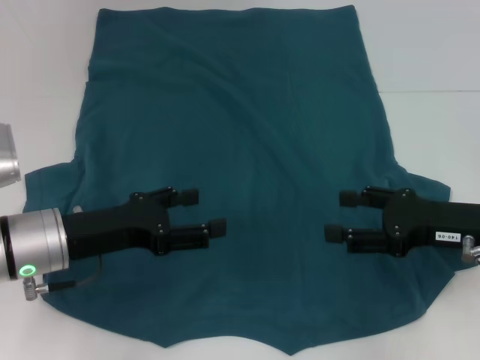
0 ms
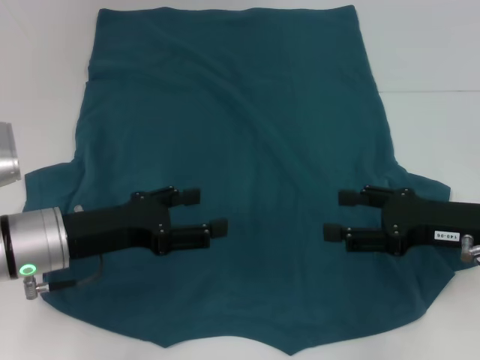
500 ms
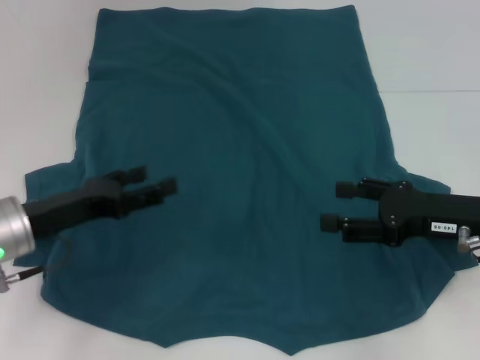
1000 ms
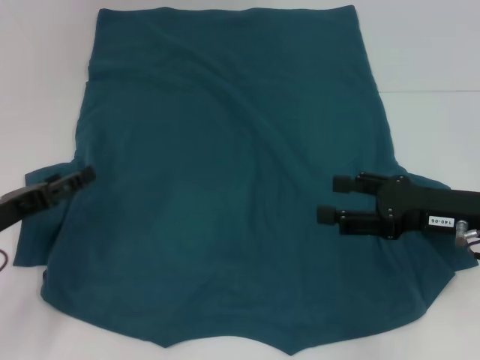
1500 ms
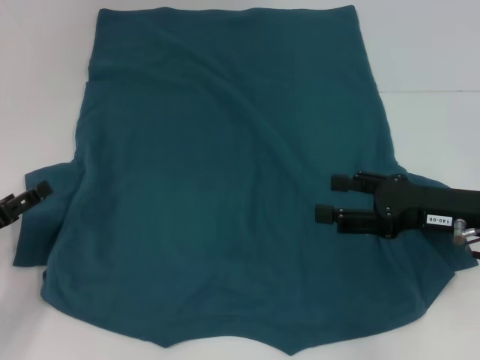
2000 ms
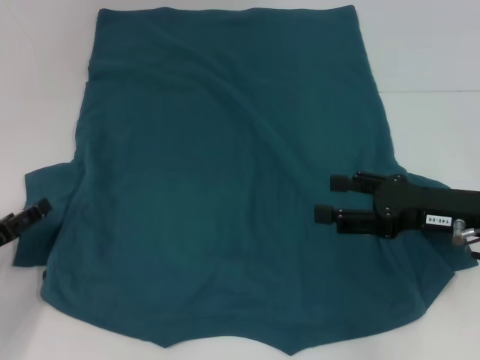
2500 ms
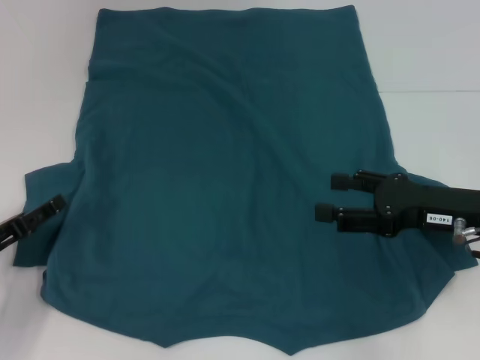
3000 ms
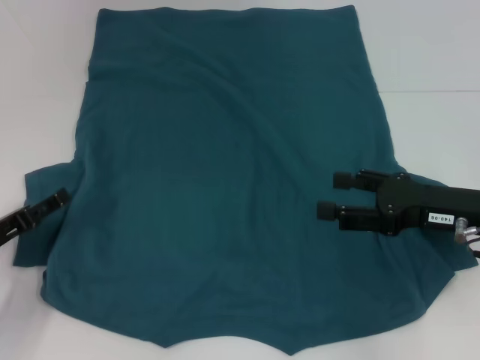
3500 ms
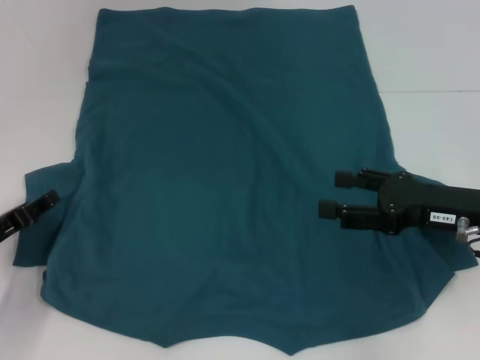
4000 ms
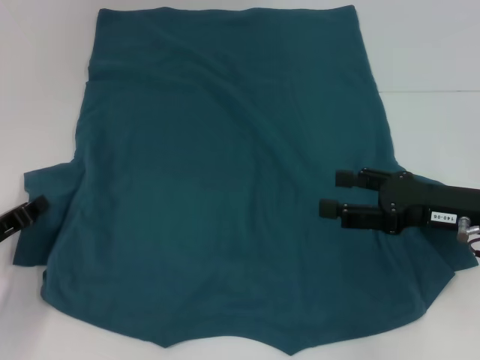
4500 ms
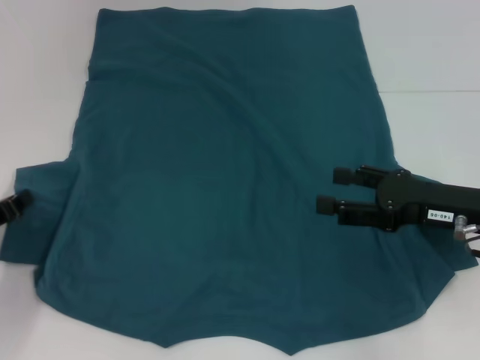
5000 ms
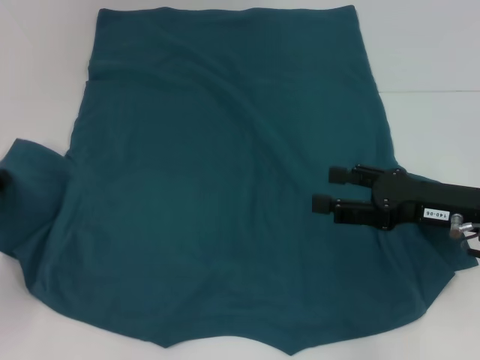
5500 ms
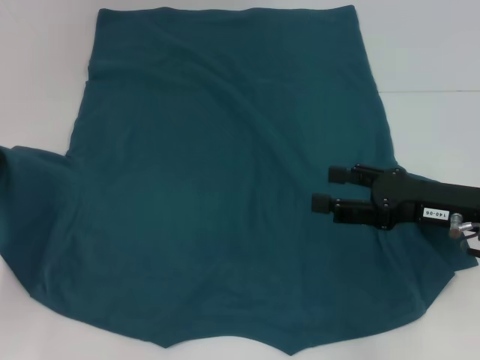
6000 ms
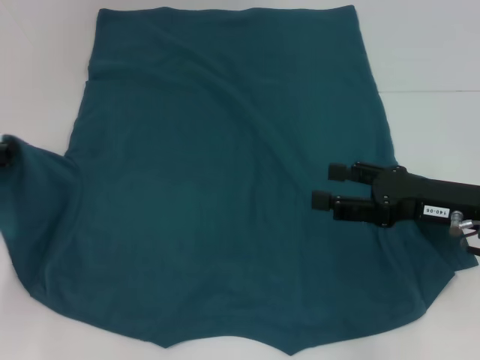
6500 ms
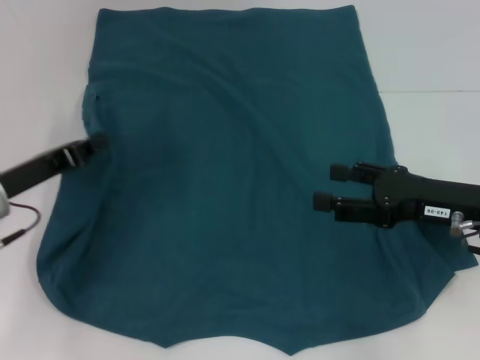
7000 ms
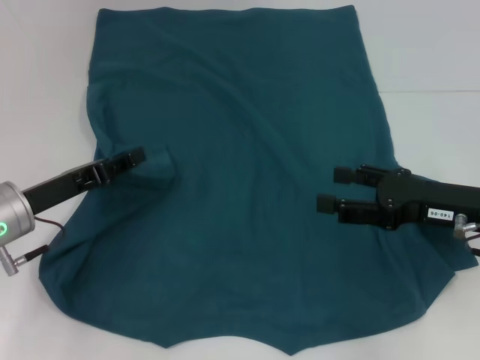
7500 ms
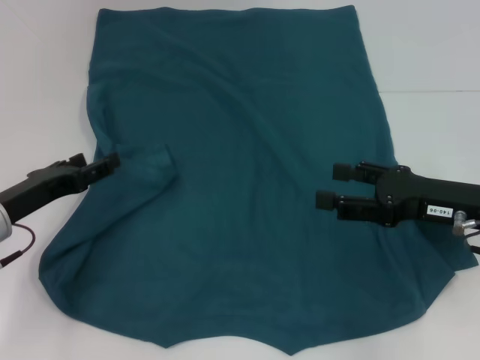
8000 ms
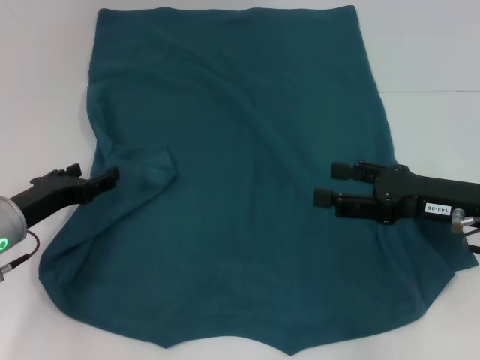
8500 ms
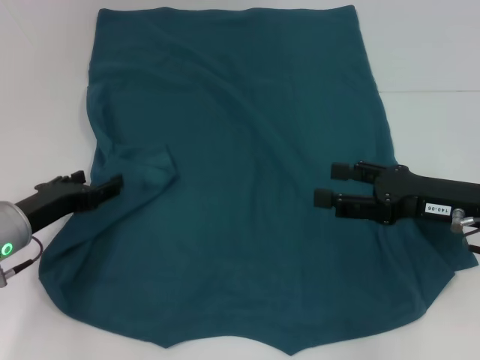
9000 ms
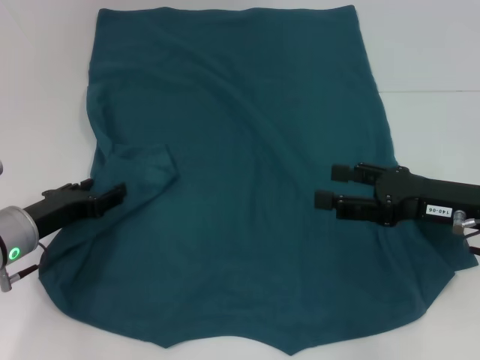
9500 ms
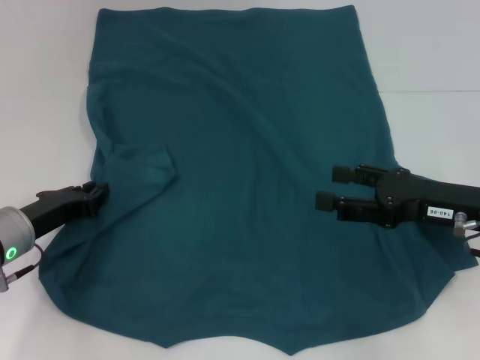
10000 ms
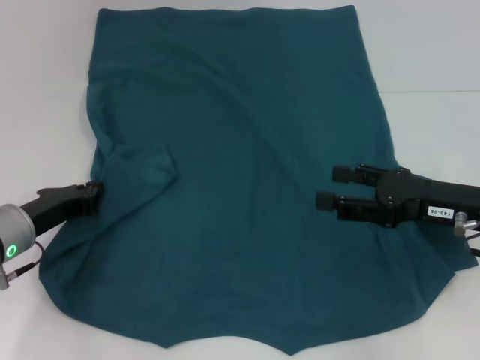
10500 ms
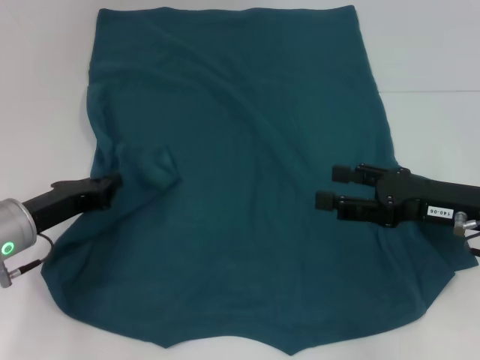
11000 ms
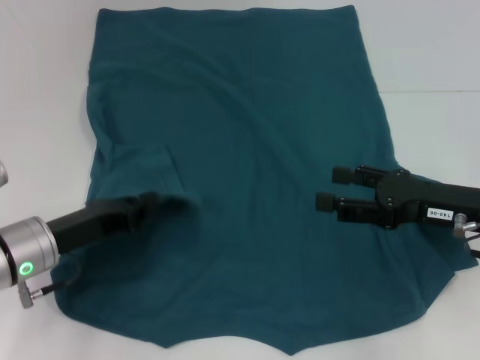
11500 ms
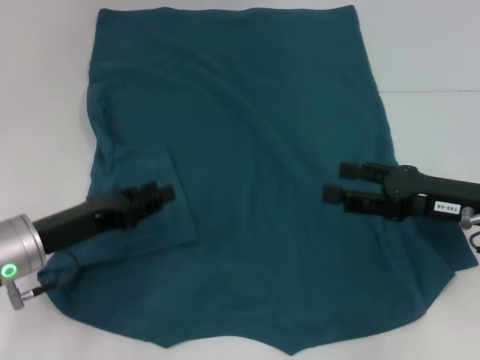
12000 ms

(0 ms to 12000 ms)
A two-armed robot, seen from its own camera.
Step, 0 ms - 11500 ms: Fold the bottom left sleeve with your left hand.
0 ms - 2000 ms: The left gripper heads to the left, covering about 10 cm.
2000 ms - 4000 ms: The grippers make only small movements.
4000 ms - 6000 ms: The left gripper shifts by some 5 cm, and closes up.
6000 ms - 8000 ms: The left gripper shifts approximately 5 cm to the right, and opens.
8000 ms - 10000 ms: The left gripper closes.
10000 ms - 12000 ms: The left gripper changes place by some 5 cm.

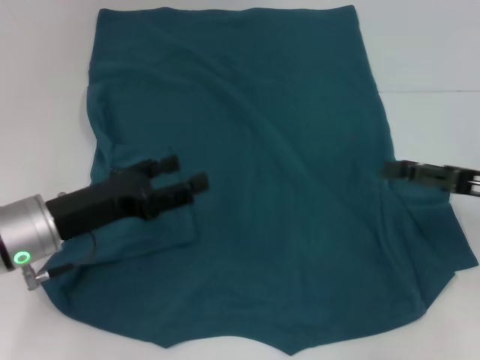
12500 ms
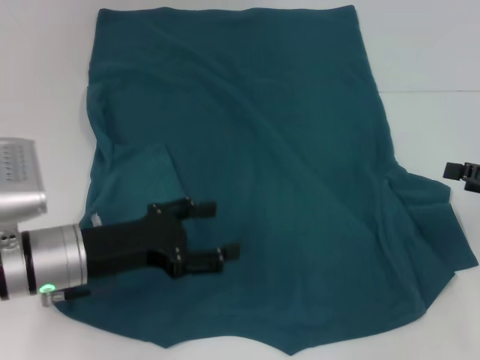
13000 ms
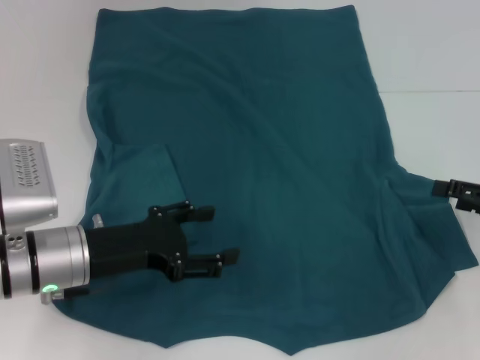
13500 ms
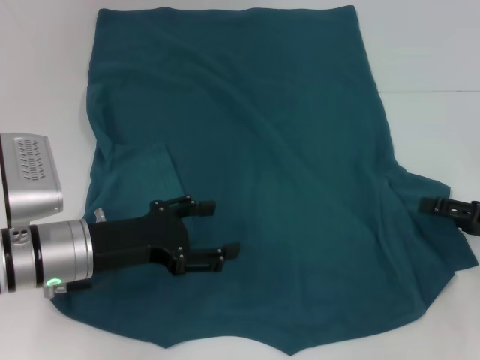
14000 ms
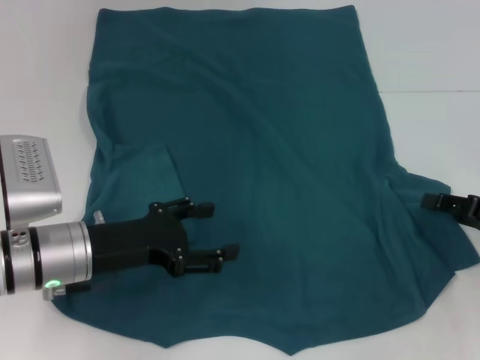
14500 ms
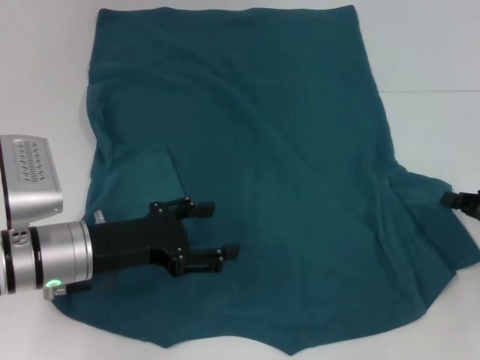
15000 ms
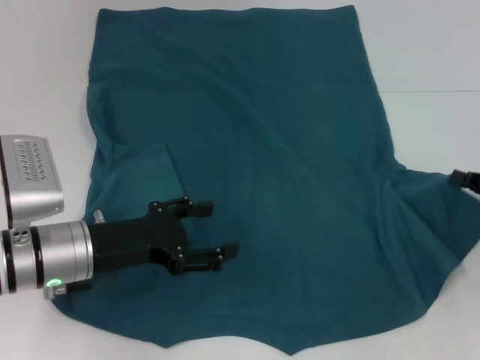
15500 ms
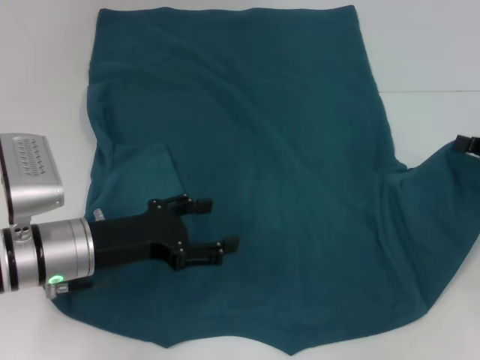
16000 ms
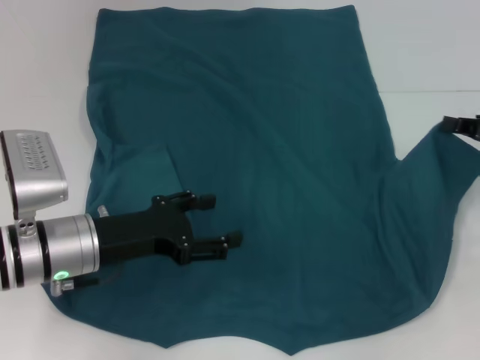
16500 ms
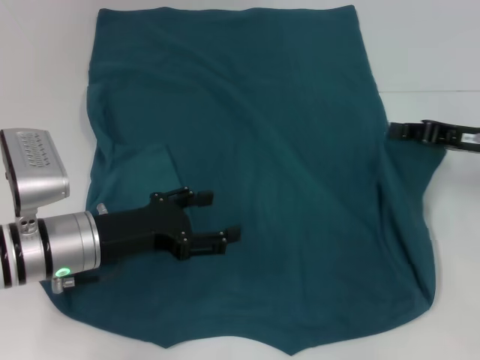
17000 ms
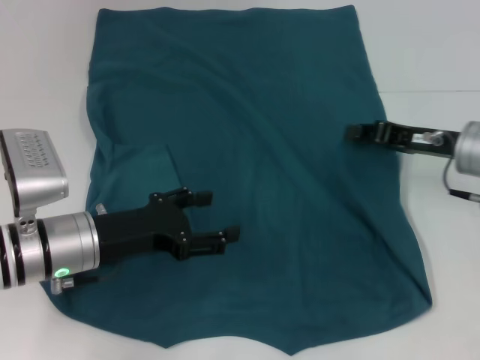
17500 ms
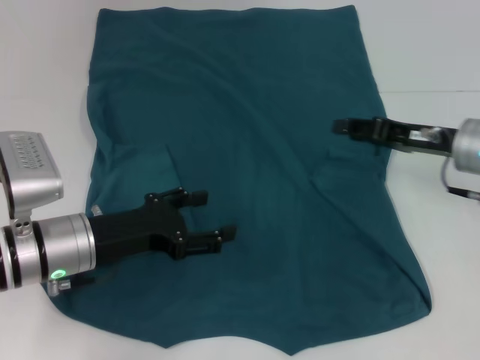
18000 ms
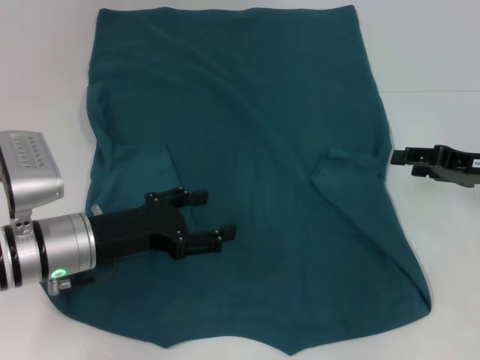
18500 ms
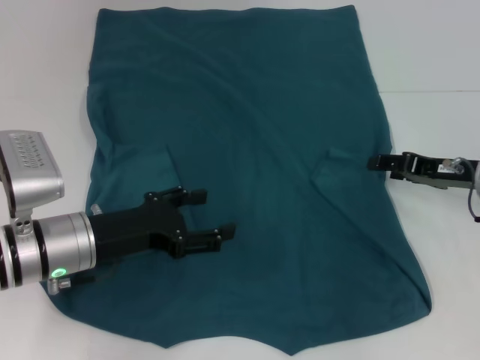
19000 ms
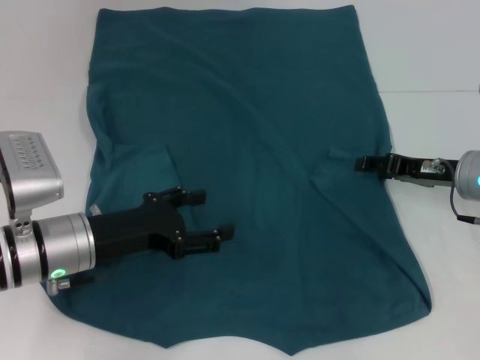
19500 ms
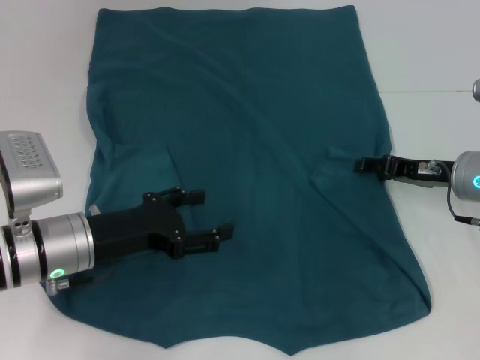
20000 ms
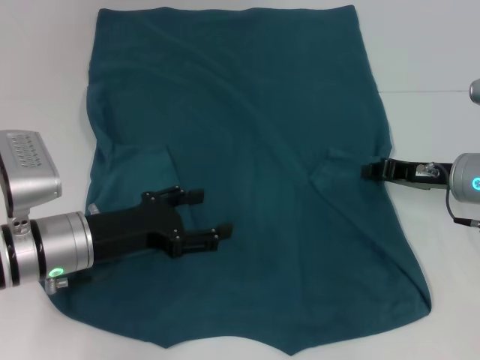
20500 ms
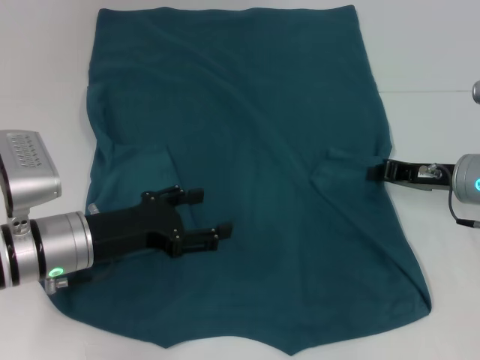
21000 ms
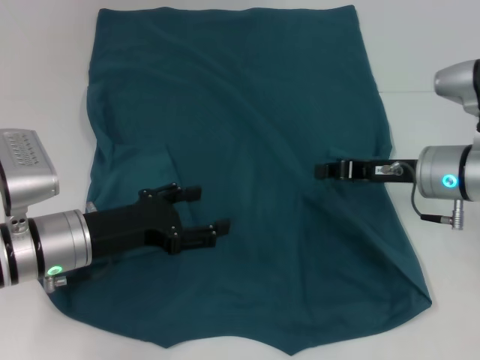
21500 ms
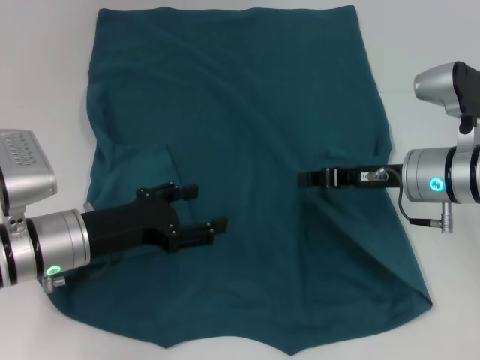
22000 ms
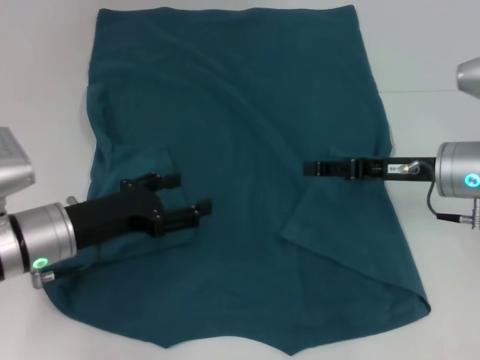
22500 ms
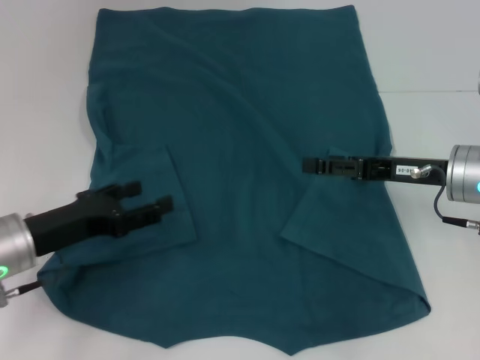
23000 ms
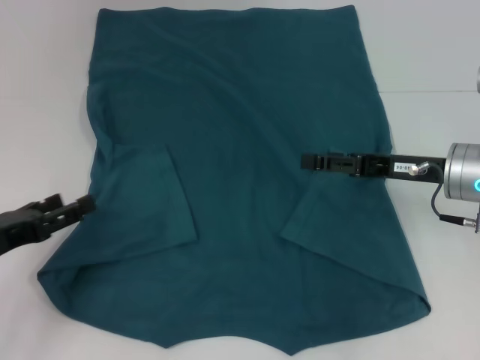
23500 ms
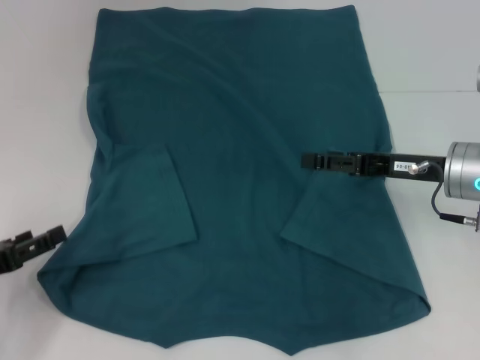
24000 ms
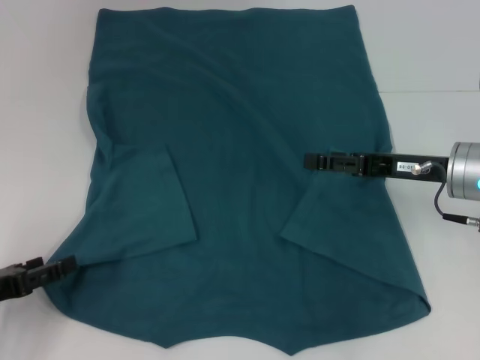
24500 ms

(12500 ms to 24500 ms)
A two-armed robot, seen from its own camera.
Step, 12500 ms - 22000 ms: Fold the bottom right sleeve to the right.
12500 ms - 14500 ms: The right gripper moves some 5 cm.
14500 ms - 16500 ms: The right gripper goes roughly 10 cm forward and upward, and closes its fingers.
16500 ms - 18500 ms: The right gripper goes to the left and returns, about 10 cm each way, and opens its fingers.
18500 ms - 20500 ms: The right gripper travels to the left by approximately 5 cm.
20500 ms - 22500 ms: The right gripper closes, then reopens.
22500 ms - 24500 ms: The left gripper is displaced to the left and backward by approximately 15 cm; the right gripper opens.

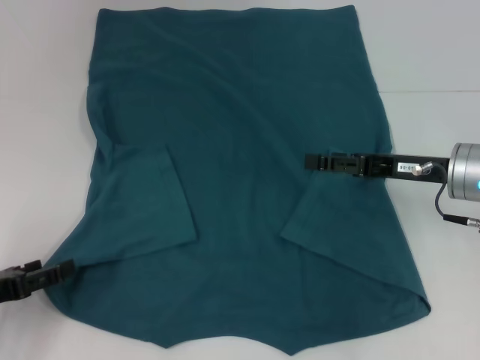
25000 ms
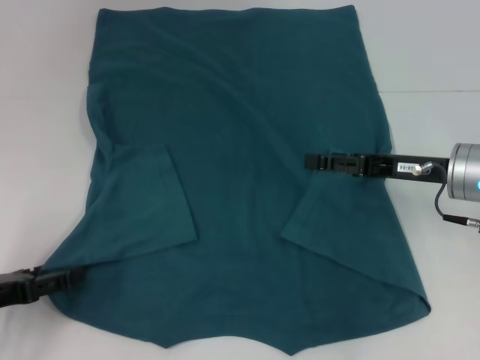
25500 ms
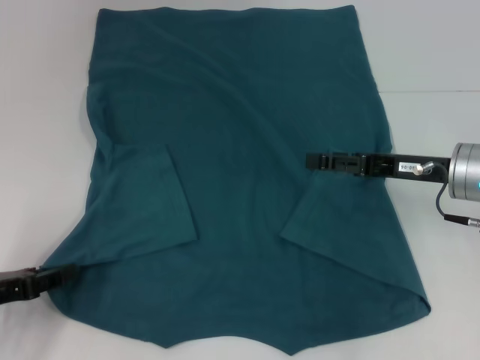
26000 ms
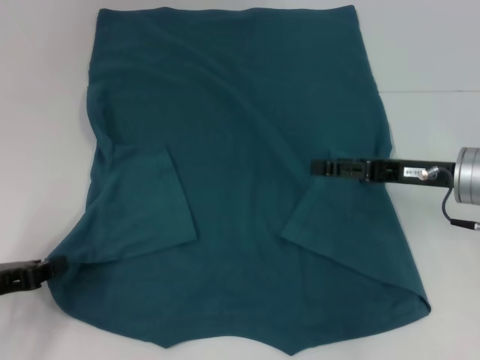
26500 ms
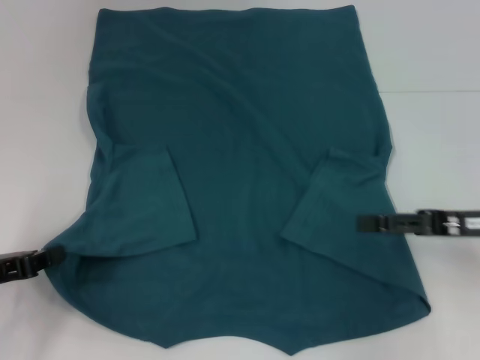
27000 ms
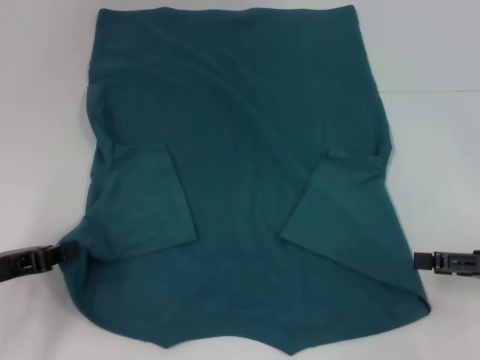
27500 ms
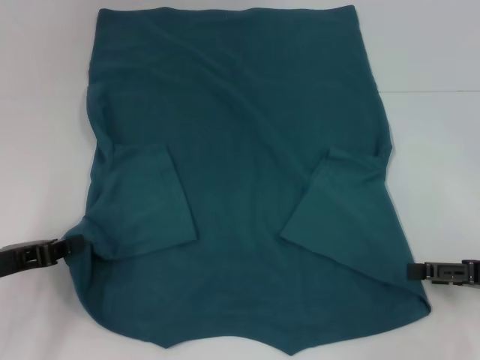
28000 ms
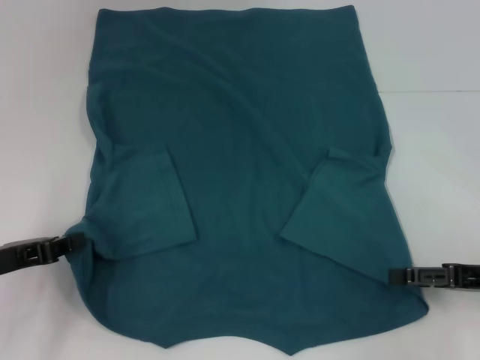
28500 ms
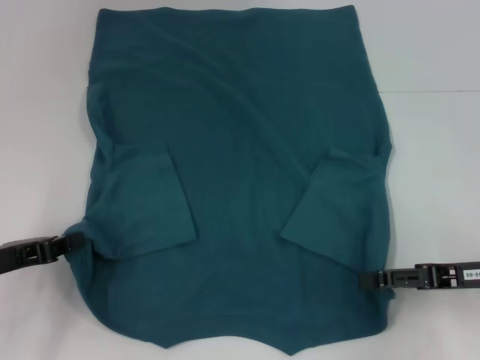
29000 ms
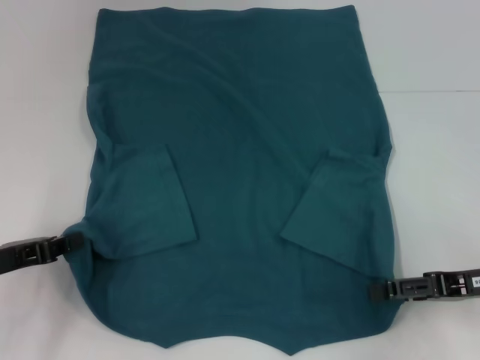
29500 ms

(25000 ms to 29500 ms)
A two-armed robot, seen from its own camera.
25000 ms - 27000 ms: The left gripper closes up. Meanwhile the right gripper travels to the right and backward by approximately 10 cm.
